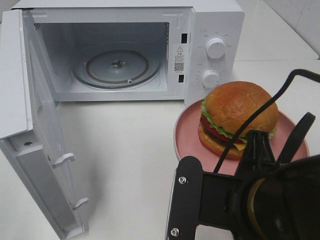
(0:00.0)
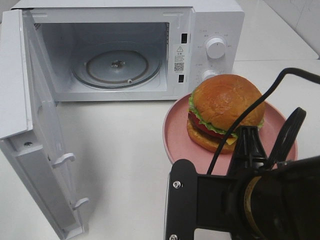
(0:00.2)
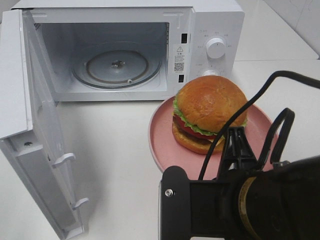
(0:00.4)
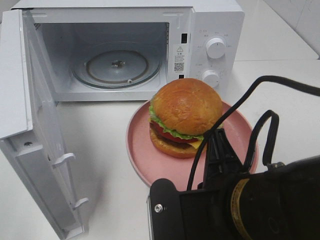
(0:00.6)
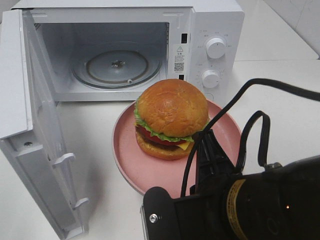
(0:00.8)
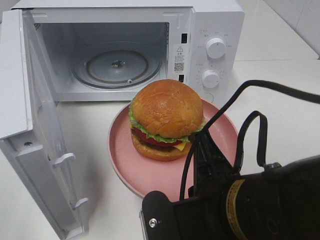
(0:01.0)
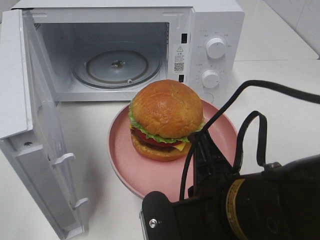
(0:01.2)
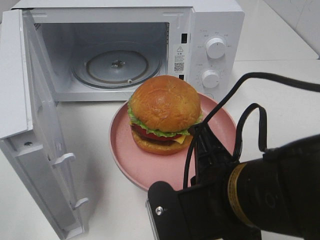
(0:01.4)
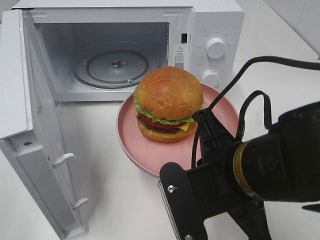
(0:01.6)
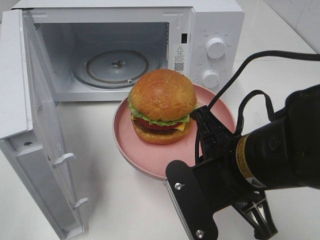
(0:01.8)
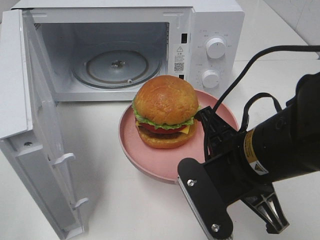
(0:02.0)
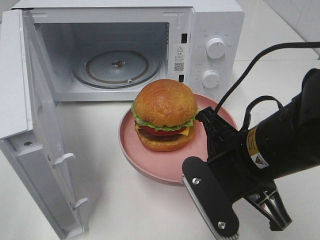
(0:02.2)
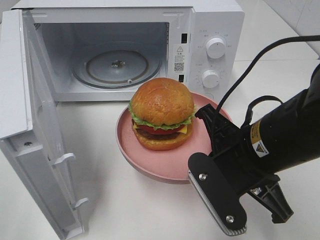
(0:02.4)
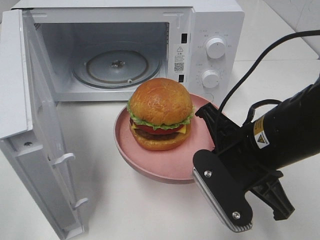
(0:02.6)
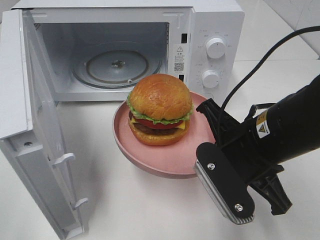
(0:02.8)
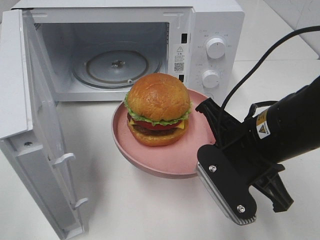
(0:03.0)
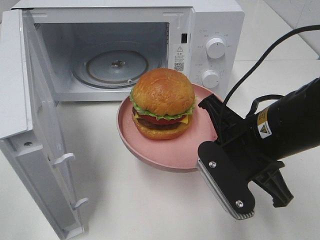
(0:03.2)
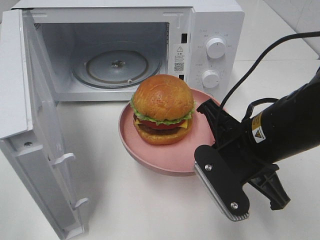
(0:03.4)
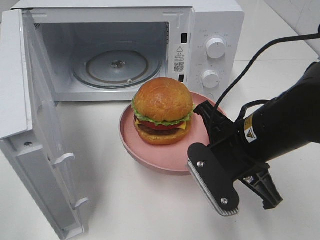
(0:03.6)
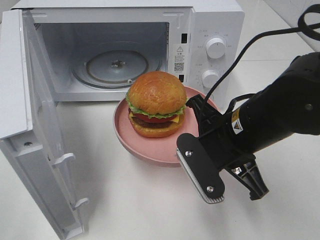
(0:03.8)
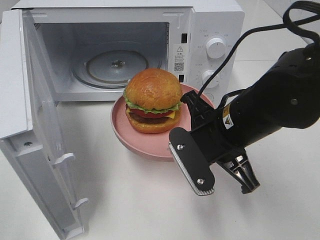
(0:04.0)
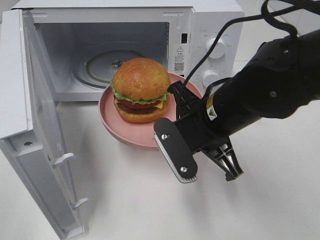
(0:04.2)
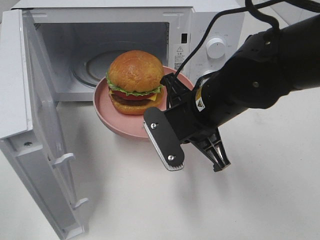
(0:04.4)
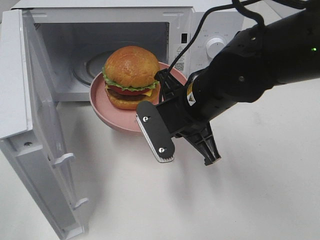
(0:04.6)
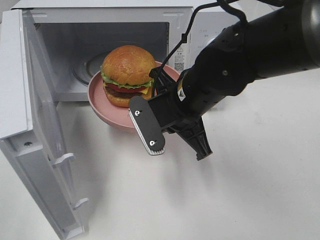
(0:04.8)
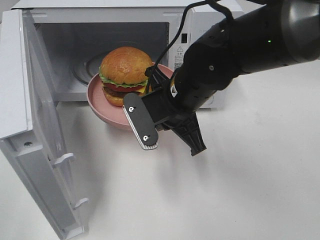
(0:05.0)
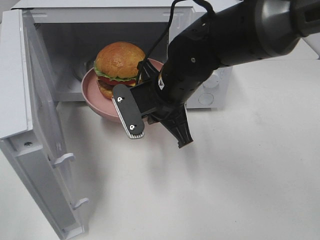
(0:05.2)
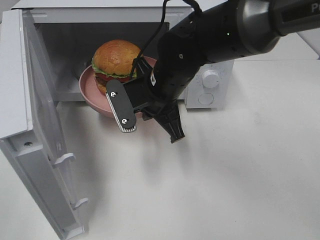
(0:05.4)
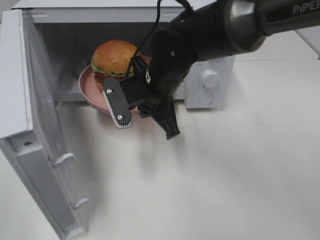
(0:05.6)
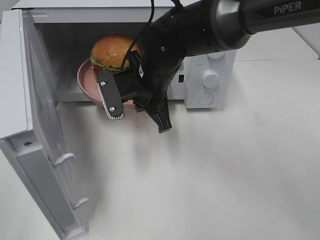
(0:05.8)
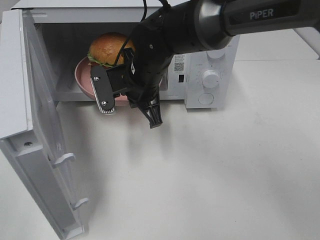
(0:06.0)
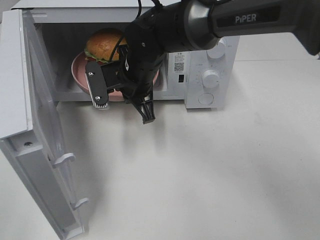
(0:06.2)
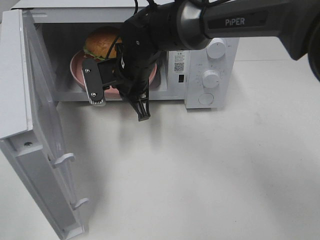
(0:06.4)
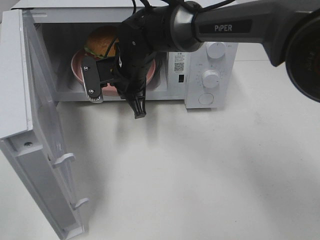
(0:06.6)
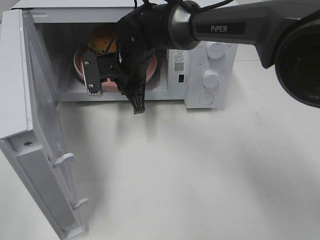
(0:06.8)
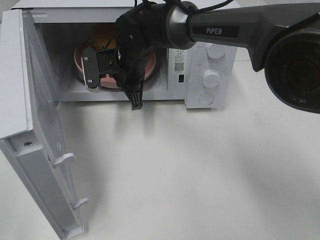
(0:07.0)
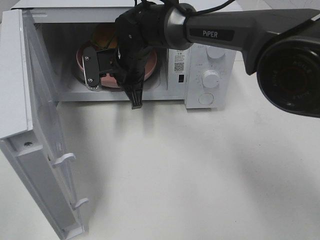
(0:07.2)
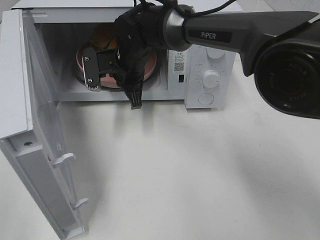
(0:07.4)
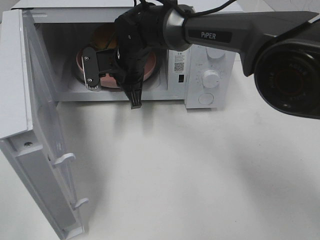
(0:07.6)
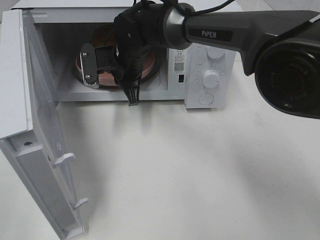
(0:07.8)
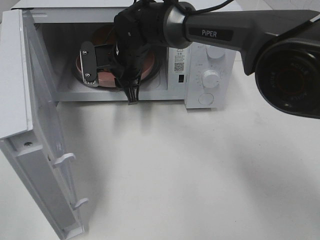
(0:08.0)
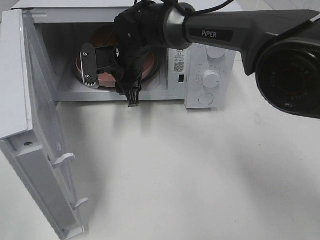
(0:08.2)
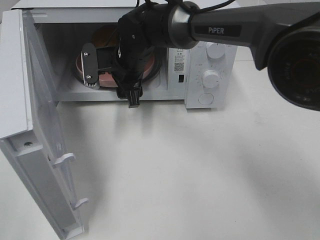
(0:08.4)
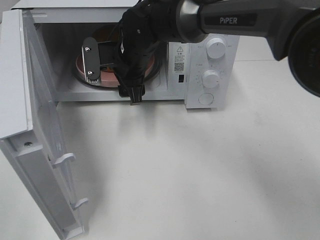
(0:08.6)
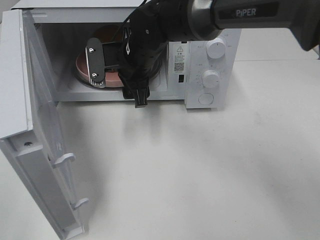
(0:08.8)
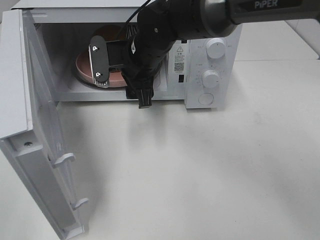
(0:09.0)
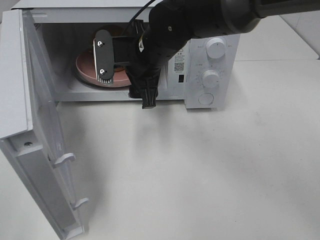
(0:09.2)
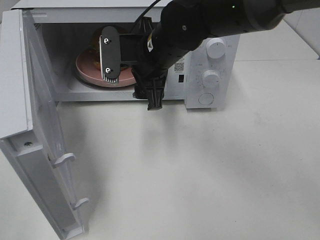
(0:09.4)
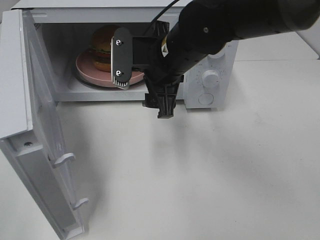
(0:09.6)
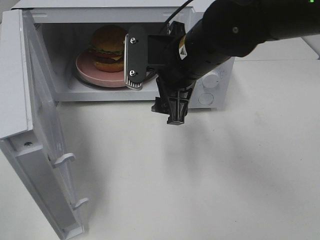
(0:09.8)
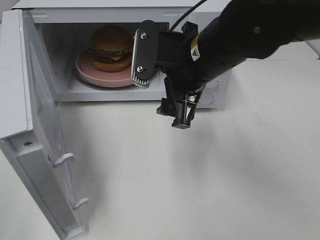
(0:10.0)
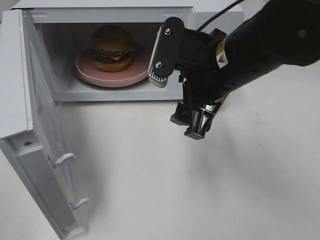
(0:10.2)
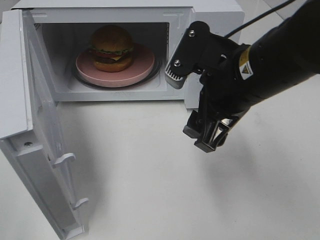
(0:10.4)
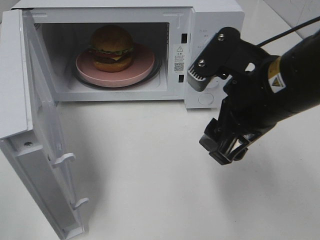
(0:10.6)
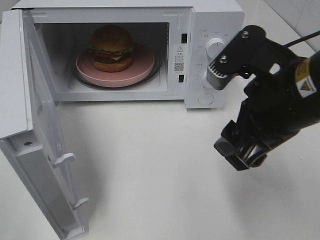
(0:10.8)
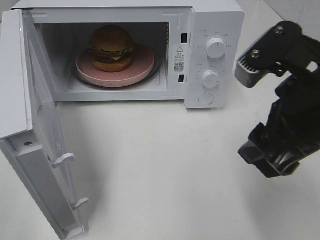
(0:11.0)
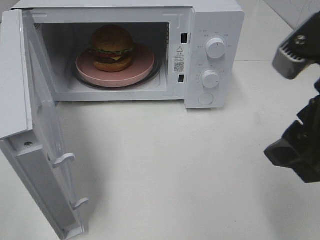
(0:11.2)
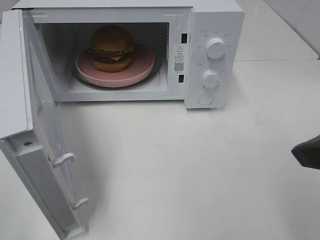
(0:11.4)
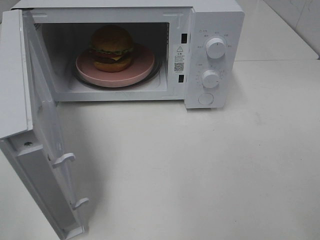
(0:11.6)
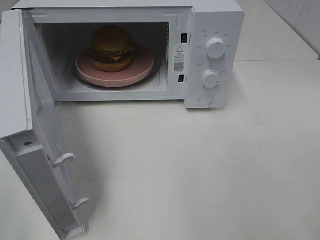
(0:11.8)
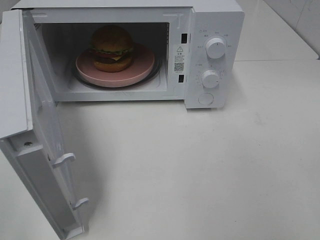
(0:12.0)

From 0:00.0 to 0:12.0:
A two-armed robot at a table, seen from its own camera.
Task of the whole recording: Heat the burger.
Step, from 0:00.0 to 0:08.0: Right hand: place the plate in the microwave.
From 0:01.6 to 0:03.0: The right gripper moves forward, about 5 cm.
From 0:03.0 to 0:04.4: The right gripper shifts roughly 10 cm forward and to the left.
From 0:04.4 to 0:06.0: The right gripper travels forward and to the left by some 15 cm.
From 0:06.0 to 0:07.6: The right gripper is displaced forward by approximately 5 cm.
From 0:07.6 to 0:09.0: The right gripper shifts by roughly 5 cm, and opens its fingers.
From 0:09.0 to 0:10.4: The right gripper goes some 20 cm backward and to the right.
From 0:10.4 to 0:12.0: The right gripper is displaced backward and to the right by about 20 cm.

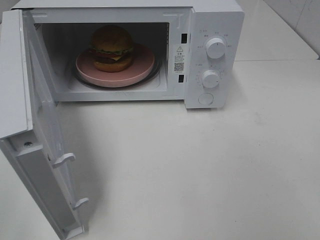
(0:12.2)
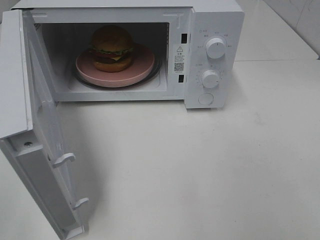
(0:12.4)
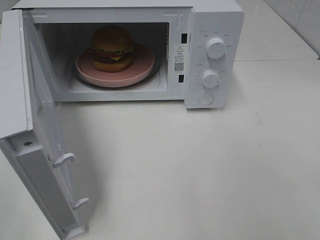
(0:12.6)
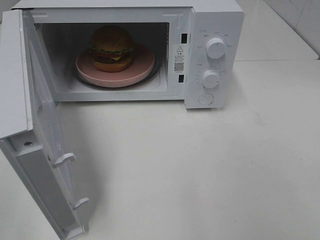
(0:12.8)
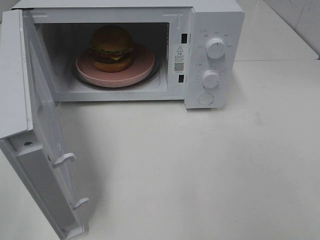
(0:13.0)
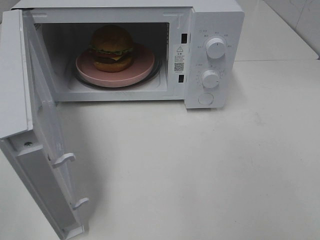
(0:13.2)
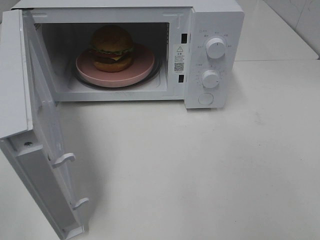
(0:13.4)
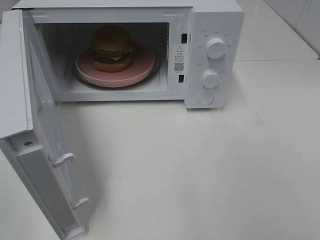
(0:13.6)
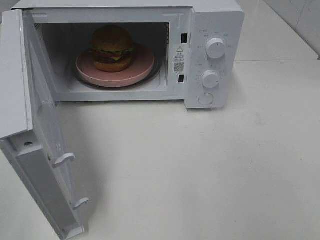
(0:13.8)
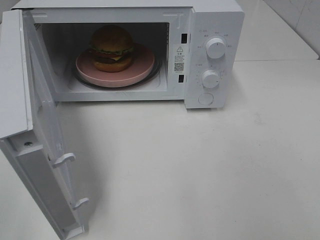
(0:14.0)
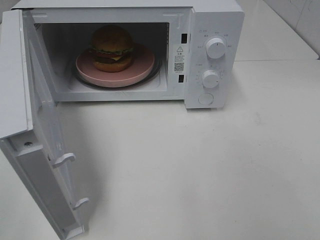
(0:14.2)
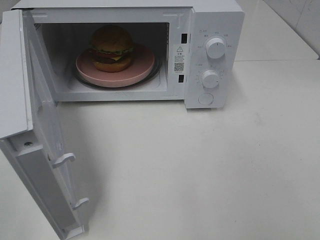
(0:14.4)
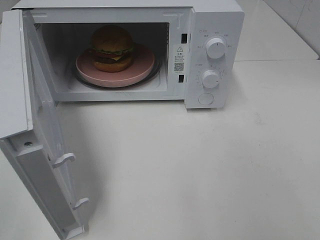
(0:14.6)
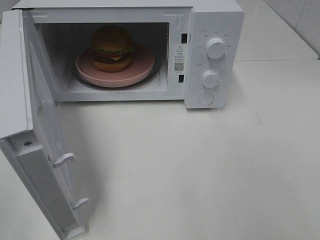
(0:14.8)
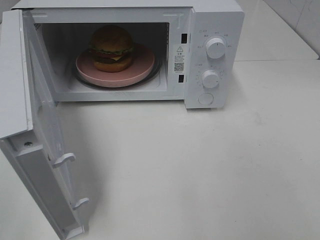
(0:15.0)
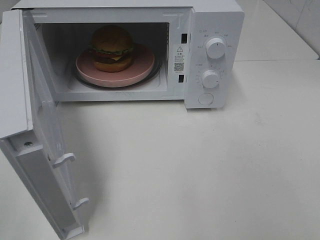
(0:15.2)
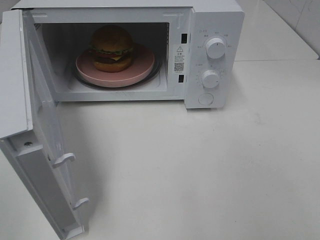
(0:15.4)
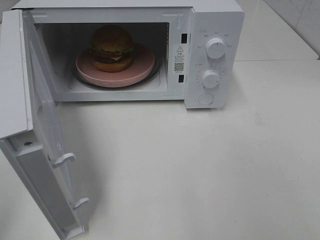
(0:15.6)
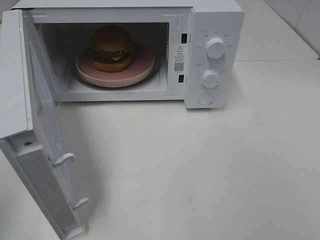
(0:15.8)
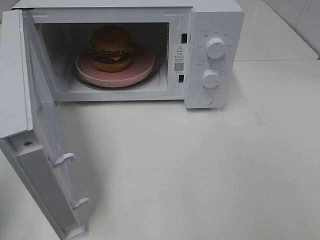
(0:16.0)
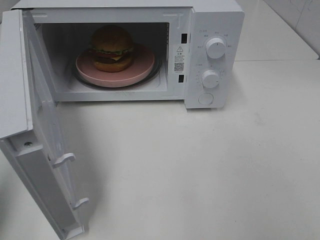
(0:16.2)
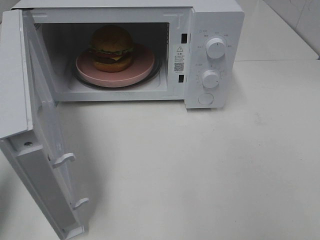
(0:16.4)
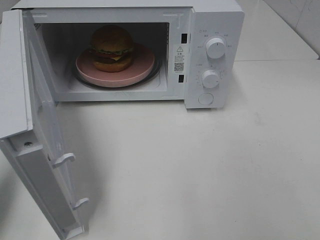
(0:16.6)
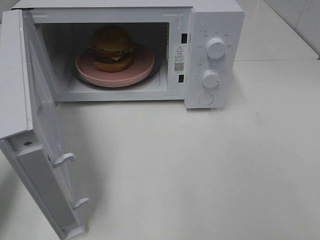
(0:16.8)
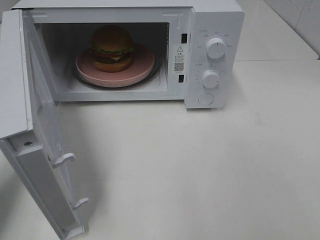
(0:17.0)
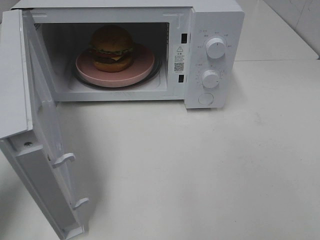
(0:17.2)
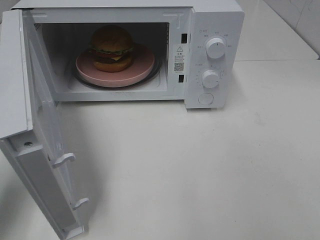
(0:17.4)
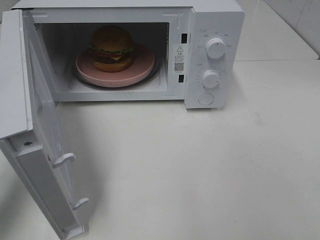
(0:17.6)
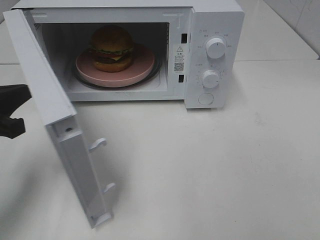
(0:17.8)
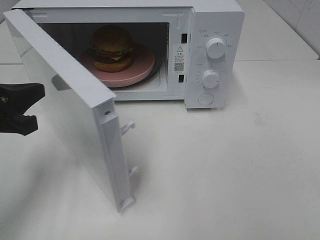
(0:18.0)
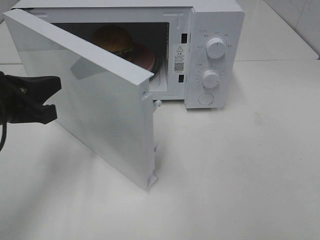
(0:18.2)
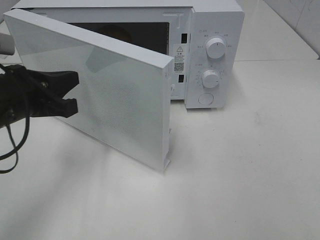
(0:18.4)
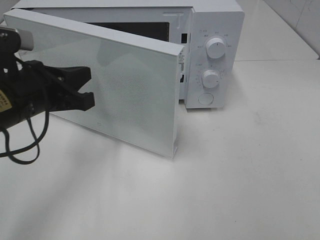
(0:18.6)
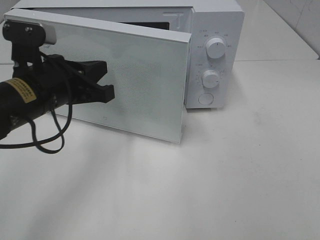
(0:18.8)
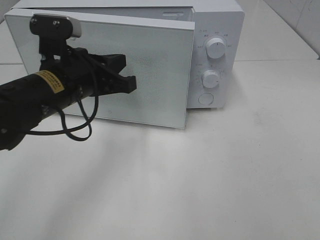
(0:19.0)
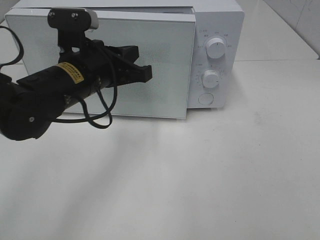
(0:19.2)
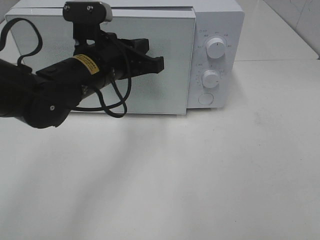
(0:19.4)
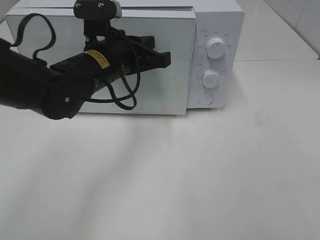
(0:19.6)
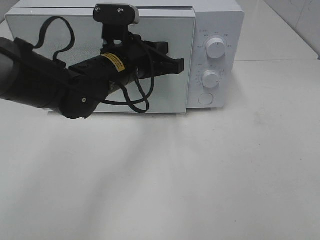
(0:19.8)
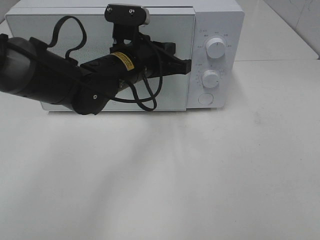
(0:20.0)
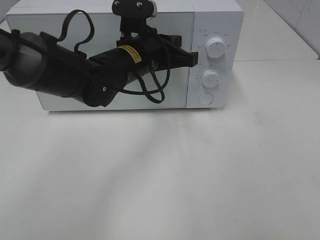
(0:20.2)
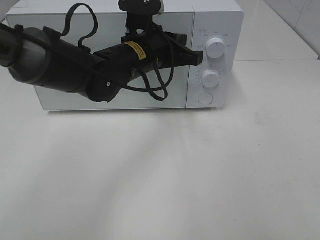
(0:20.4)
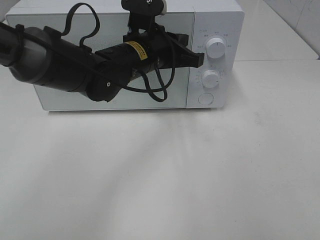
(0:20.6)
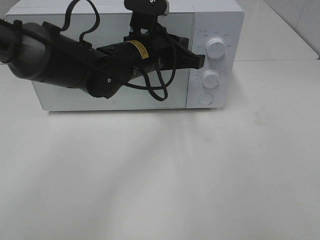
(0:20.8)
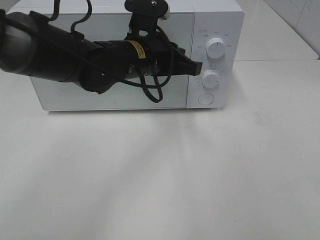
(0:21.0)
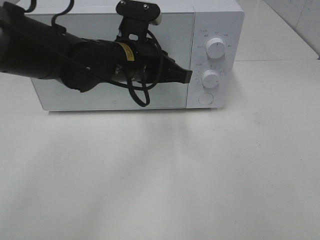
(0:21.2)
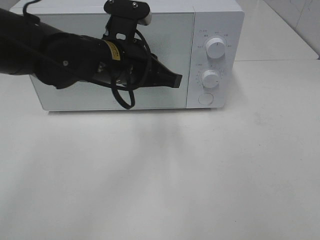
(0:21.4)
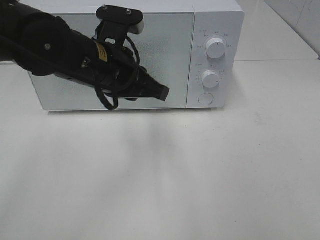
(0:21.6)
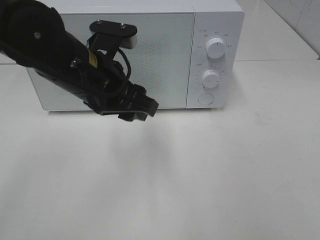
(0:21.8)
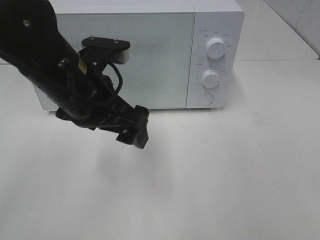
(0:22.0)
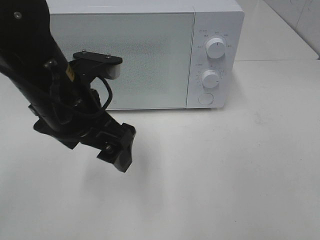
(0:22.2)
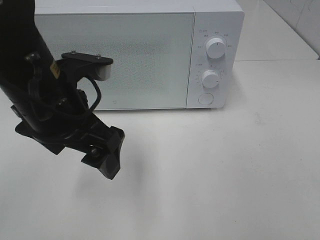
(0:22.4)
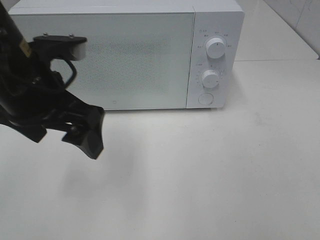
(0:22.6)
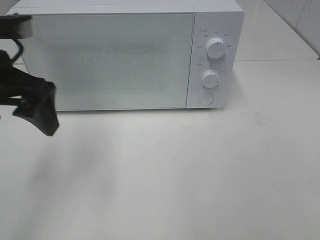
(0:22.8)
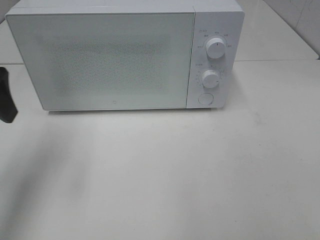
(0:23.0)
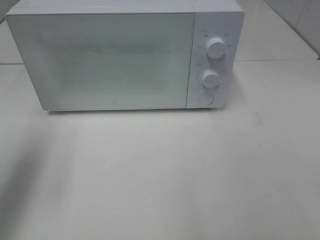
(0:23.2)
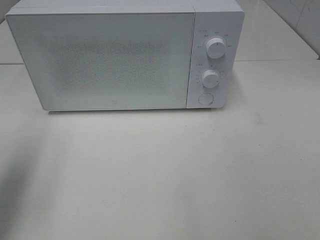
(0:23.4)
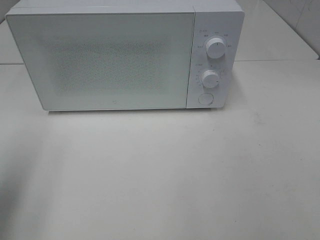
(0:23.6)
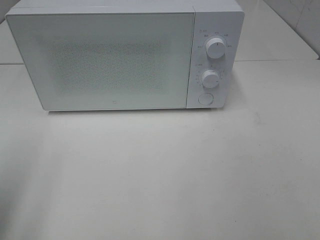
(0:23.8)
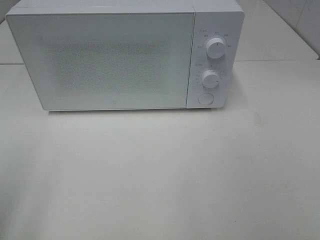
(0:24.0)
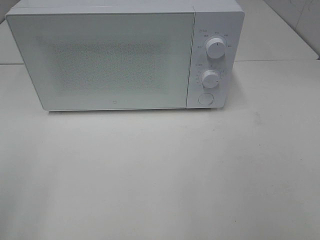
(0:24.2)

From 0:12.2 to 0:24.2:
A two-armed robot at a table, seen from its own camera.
Task of the whole recording: Heat the burger.
Step, from 0:12.2 to 0:20.8: Left hand: close the microwave door.
From 0:13.8 to 0:15.2: The two grippers keep their place.
From 0:15.2 to 0:16.6: The left gripper shifts approximately 15 cm forward, and closes.
From 0:16.6 to 0:18.2: The left gripper heads to the right, forward and downward, covering some 15 cm.
From 0:18.2 to 0:19.8: The left gripper shifts approximately 20 cm to the right and forward.
From 0:19.8 to 0:21.2: The grippers move only a little.
From 0:21.2 to 0:22.6: The left gripper moves to the left, backward and upward, some 15 cm, and opens.
From 0:22.6 to 0:24.2: The left gripper travels backward and to the left by about 25 cm.
